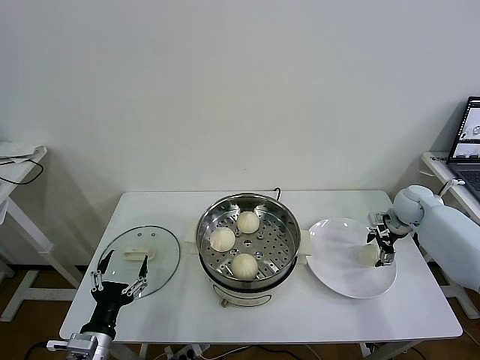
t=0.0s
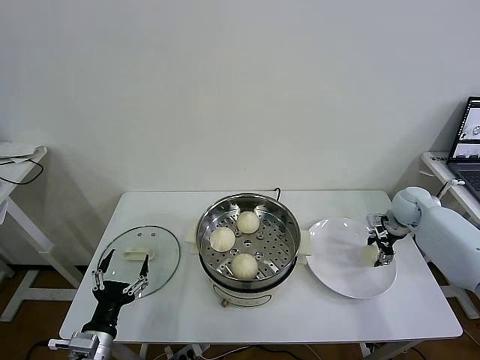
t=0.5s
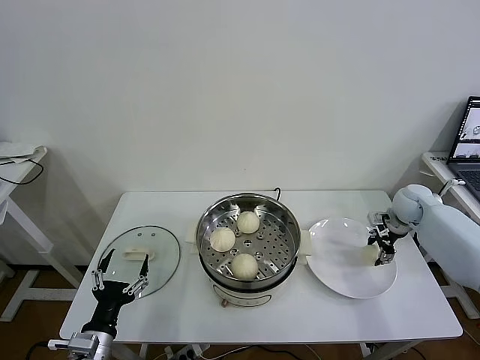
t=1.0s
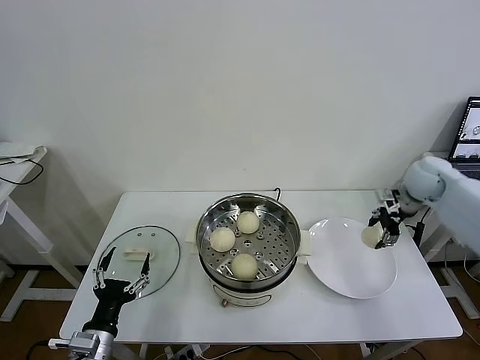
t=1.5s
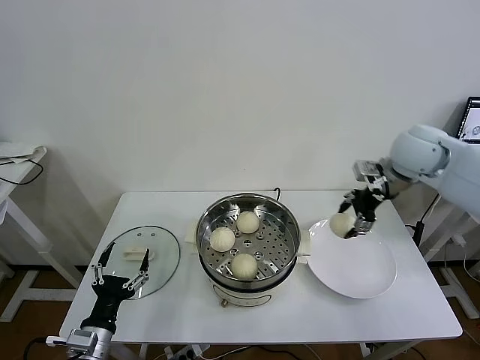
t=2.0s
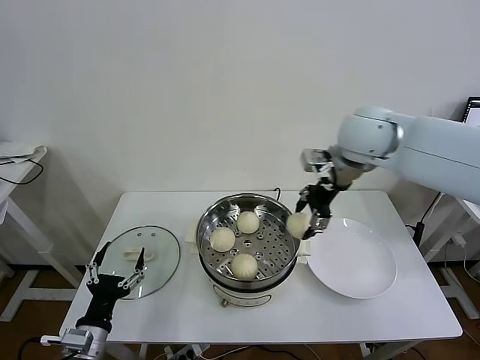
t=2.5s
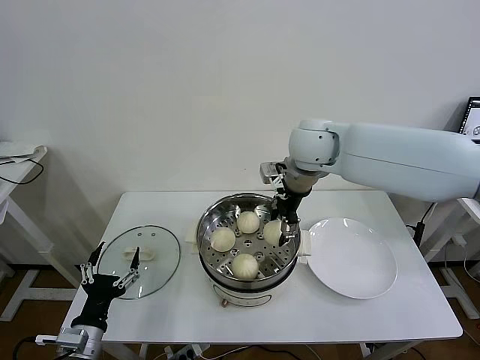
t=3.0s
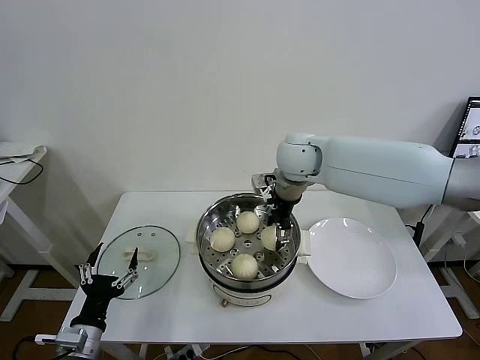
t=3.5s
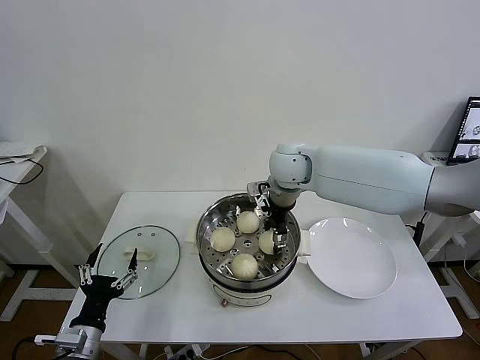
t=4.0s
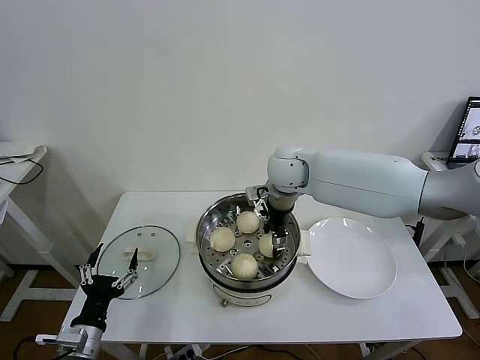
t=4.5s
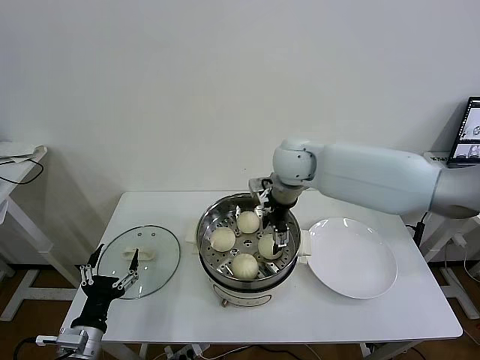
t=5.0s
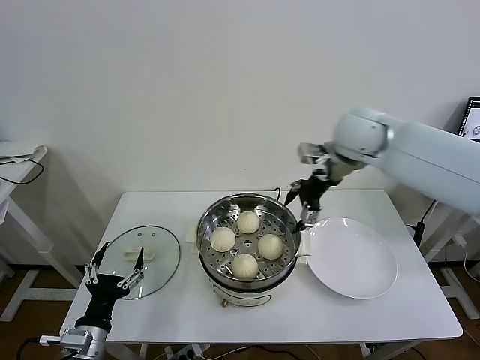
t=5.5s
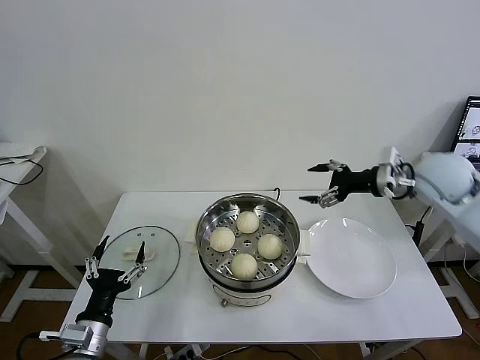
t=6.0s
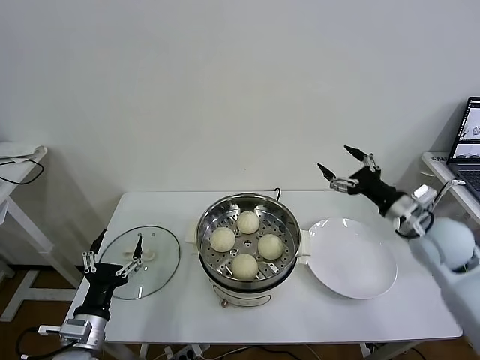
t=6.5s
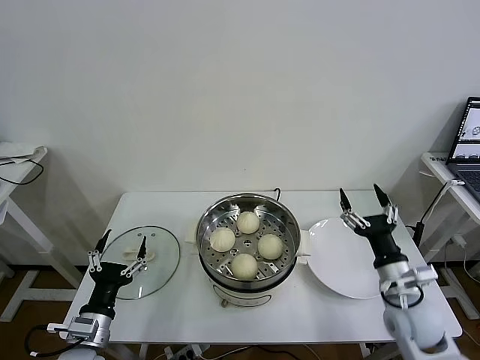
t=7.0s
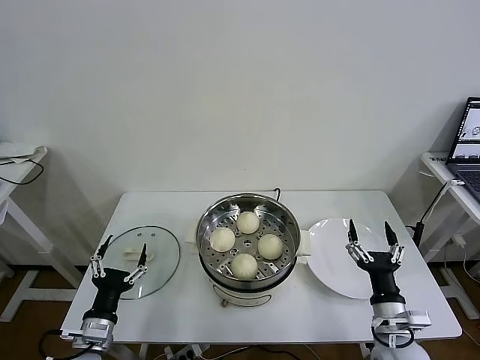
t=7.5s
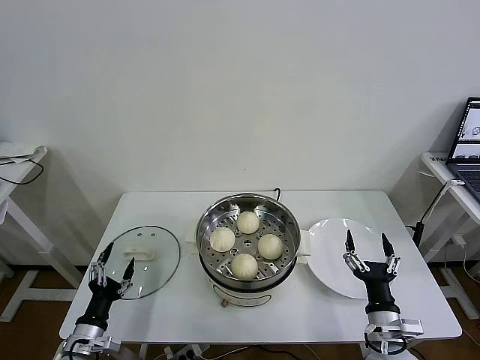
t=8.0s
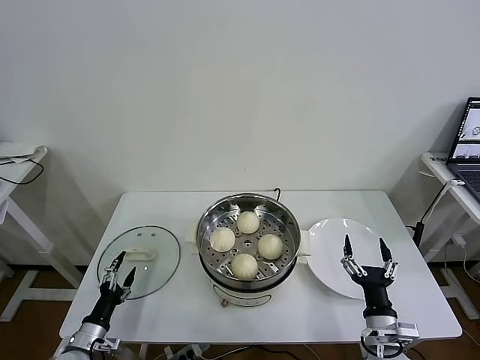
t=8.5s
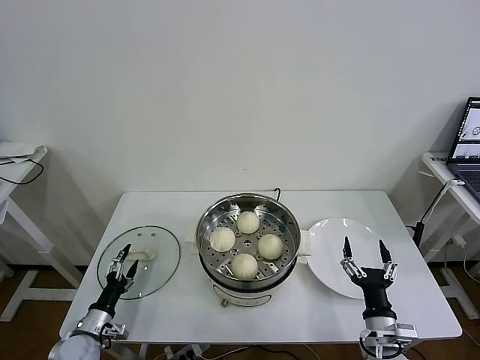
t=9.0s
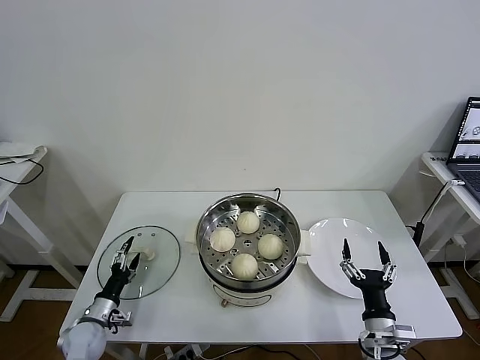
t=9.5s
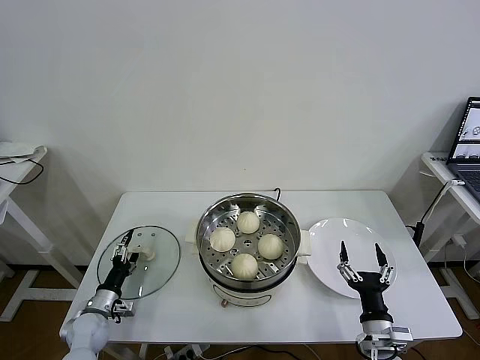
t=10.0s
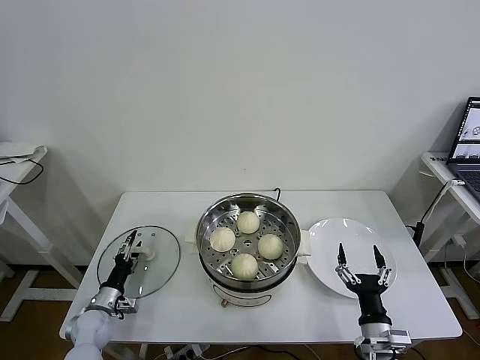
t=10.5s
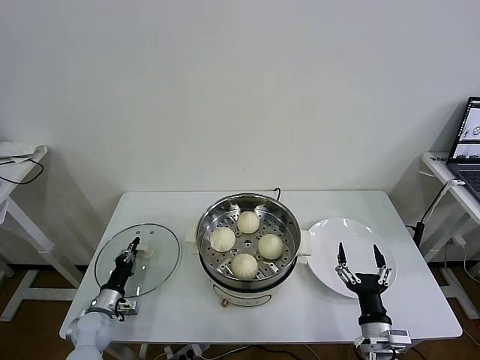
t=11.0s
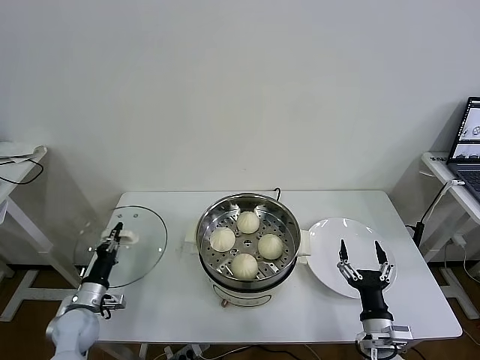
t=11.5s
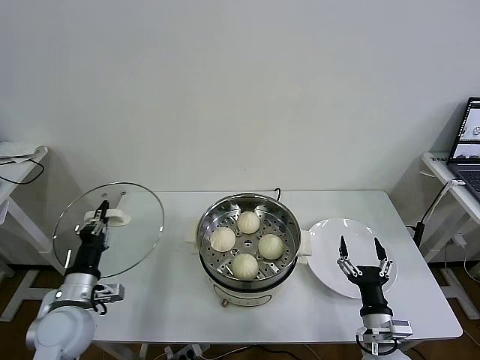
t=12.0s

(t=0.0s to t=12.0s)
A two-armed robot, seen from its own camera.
Task of the whole recording: take steamed baozi put them in steamer then cover it.
Step, t=1.5s - t=5.0s: Place the baozi on the steamer with right gripper.
Step, t=5.5s - t=11.0s: Grasp the pot lid with left gripper.
t=0.0s - t=2.0s: The right gripper moves upward and to the left, about 25 cm, and closes its fingers.
t=2.0s - t=4.0s: The right gripper is displaced to the left by approximately 25 cm.
t=4.0s - t=6.0s: The right gripper goes roughly 25 cm to the right, and opens up.
t=6.0s - t=8.0s: The left gripper travels downward by approximately 10 cm. Meanwhile the right gripper heads downward and backward, covering approximately 40 cm.
t=8.0s - t=10.0s: The left gripper travels forward and downward by roughly 15 cm.
t=10.0s - t=12.0s: The left gripper is displaced upward by roughly 15 cm, and closes up.

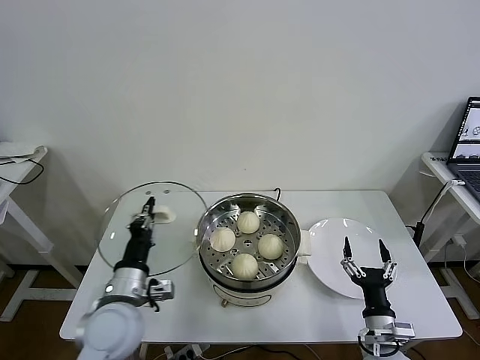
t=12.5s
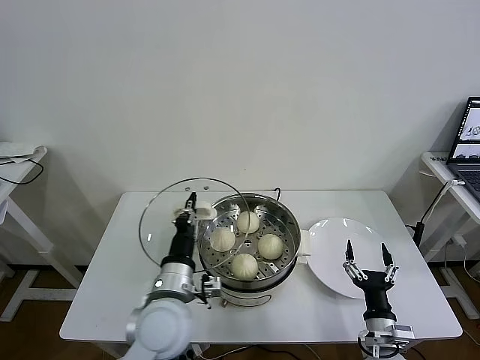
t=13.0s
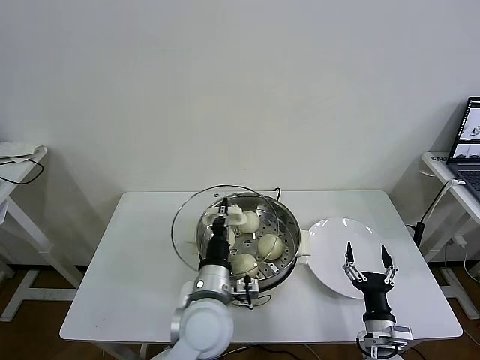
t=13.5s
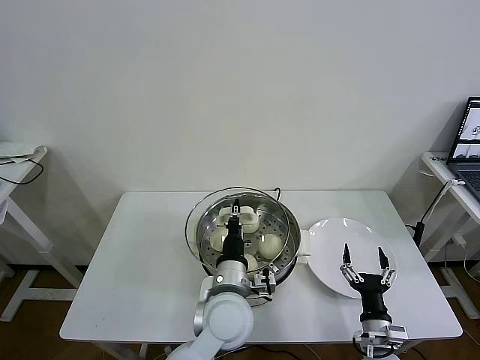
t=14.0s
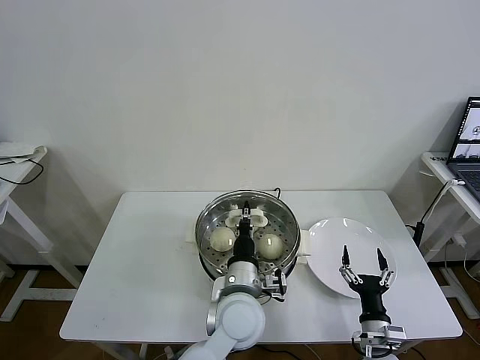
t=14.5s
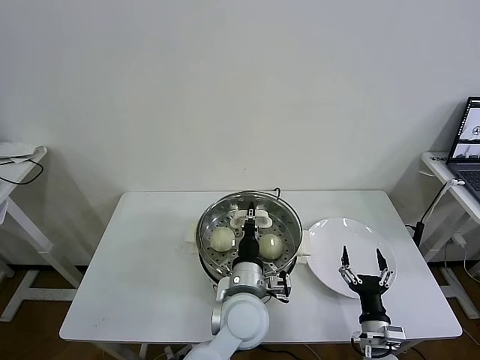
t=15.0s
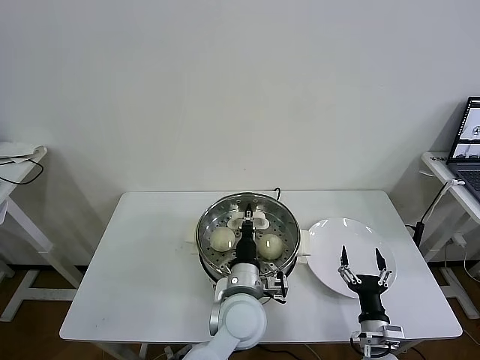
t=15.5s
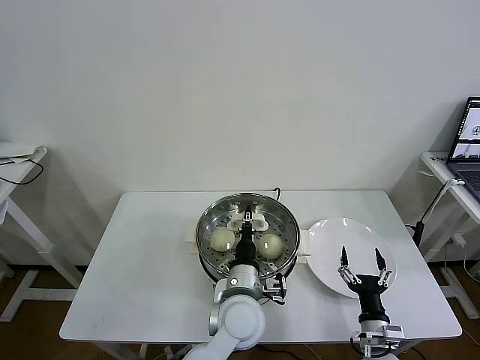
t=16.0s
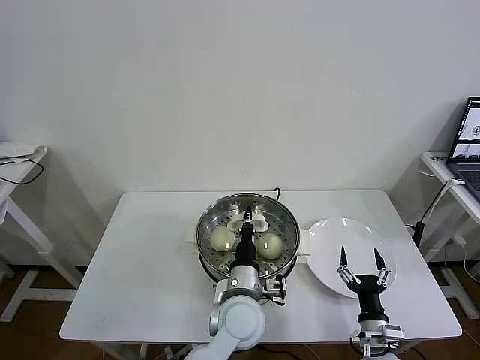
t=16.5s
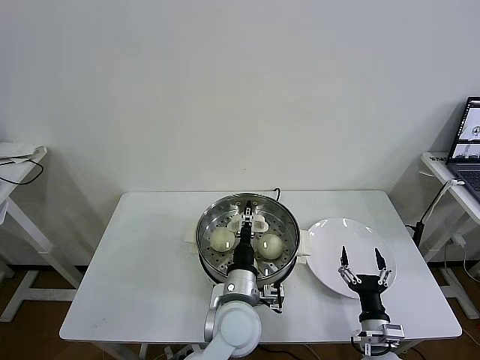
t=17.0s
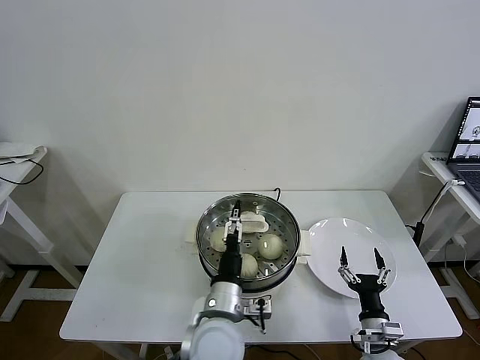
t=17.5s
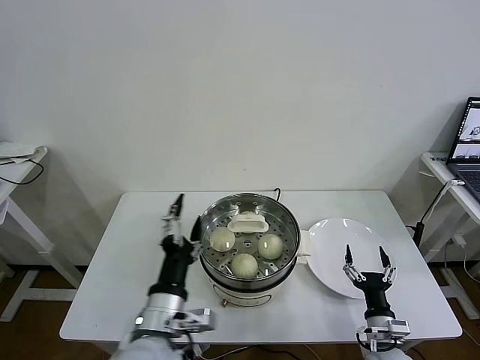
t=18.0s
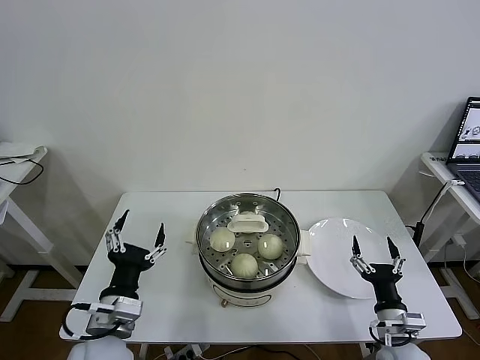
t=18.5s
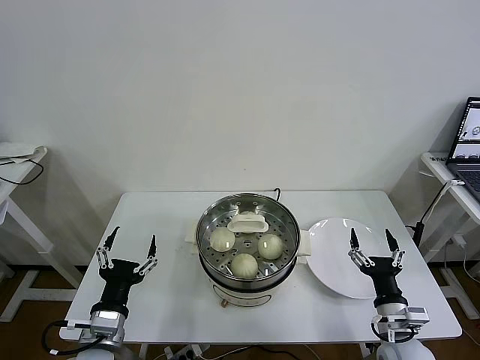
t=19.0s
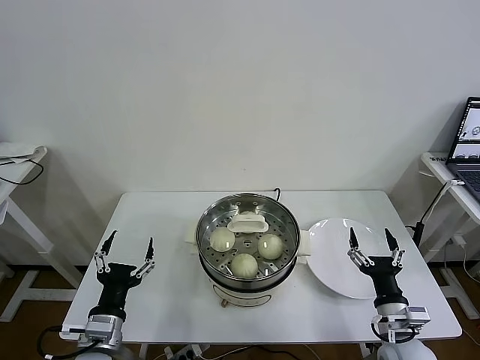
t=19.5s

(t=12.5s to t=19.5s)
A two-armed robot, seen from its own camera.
Task of the whole recording: take steamed baozi put them in steamer then cover it.
Step, t=12.5s - t=17.5s: Place the pot lid on the steamer with left gripper.
t=12.5s - t=14.5s: The left gripper travels to the right by roughly 25 cm.
t=14.5s - t=16.0s: The grippers move only a little.
t=16.0s - t=17.5s: The left gripper ends up about 5 cm from where it was, and opens up.
t=17.5s - t=19.5s: The left gripper is displaced to the left by some 20 cm. Meanwhile the right gripper goes approximately 10 cm upward.
